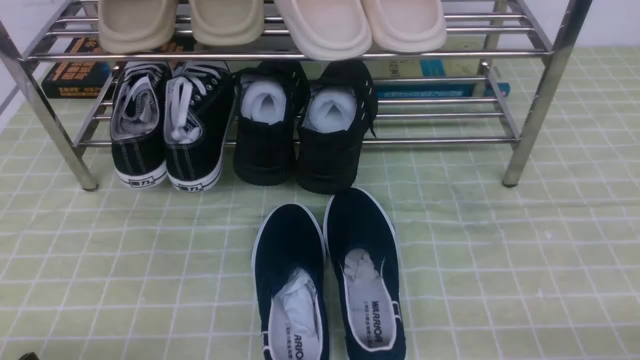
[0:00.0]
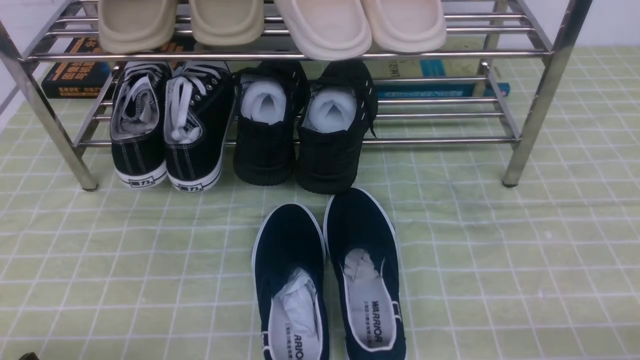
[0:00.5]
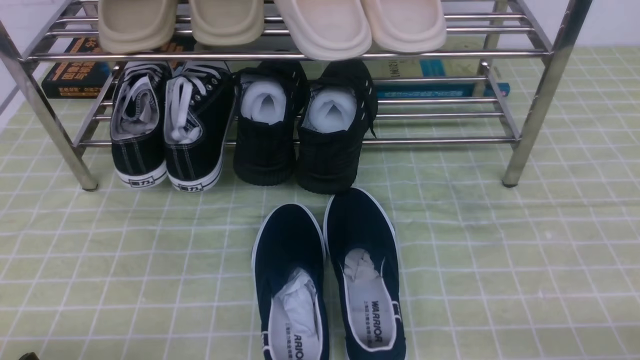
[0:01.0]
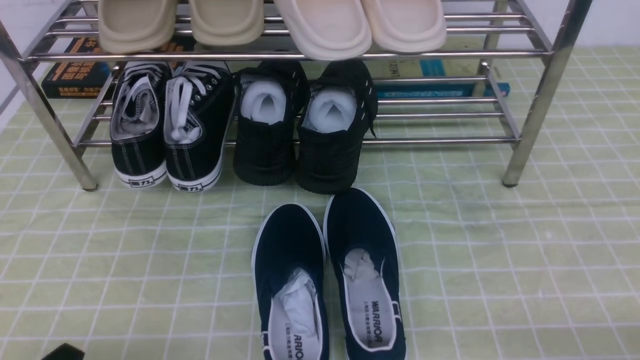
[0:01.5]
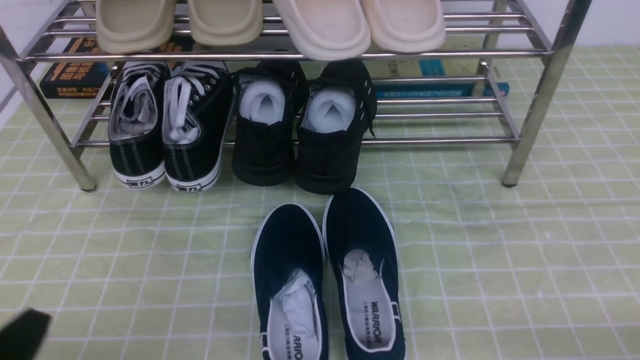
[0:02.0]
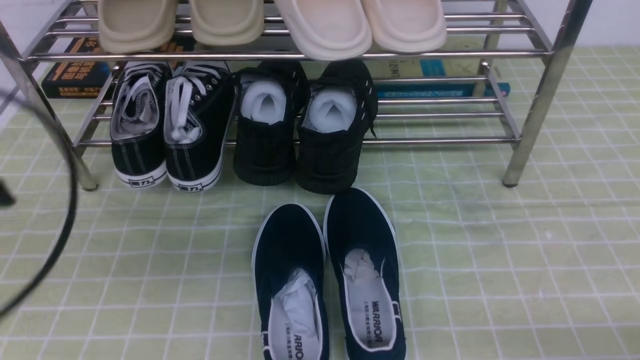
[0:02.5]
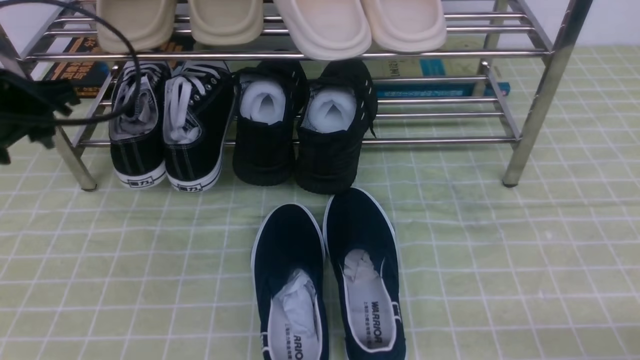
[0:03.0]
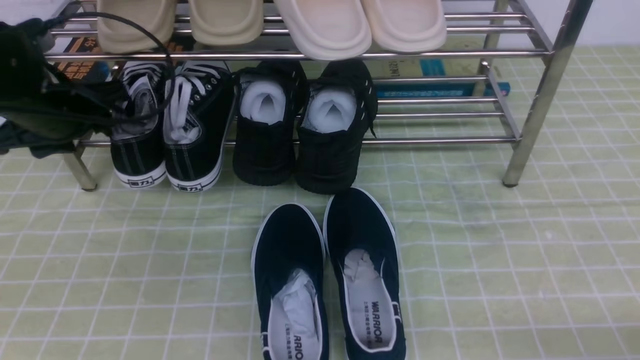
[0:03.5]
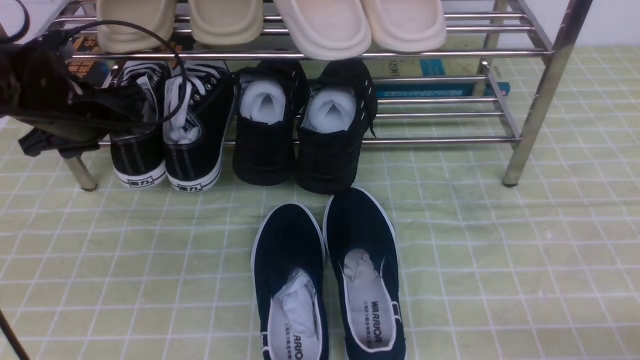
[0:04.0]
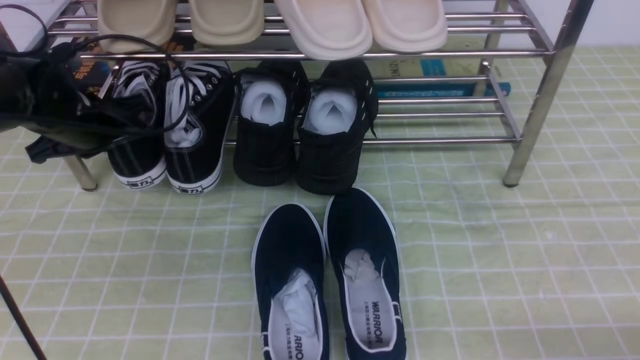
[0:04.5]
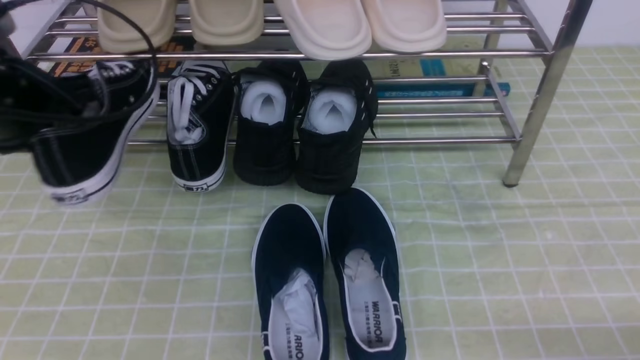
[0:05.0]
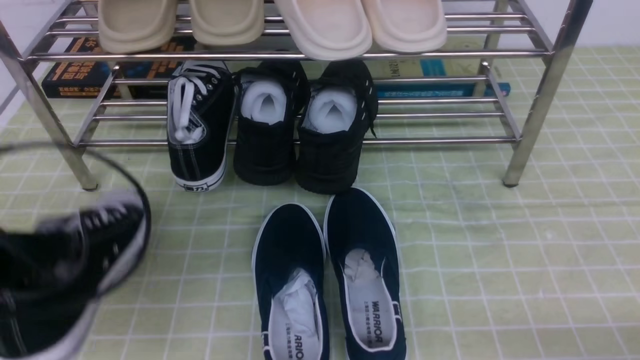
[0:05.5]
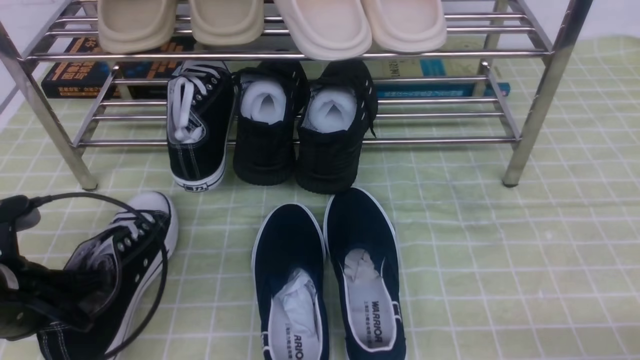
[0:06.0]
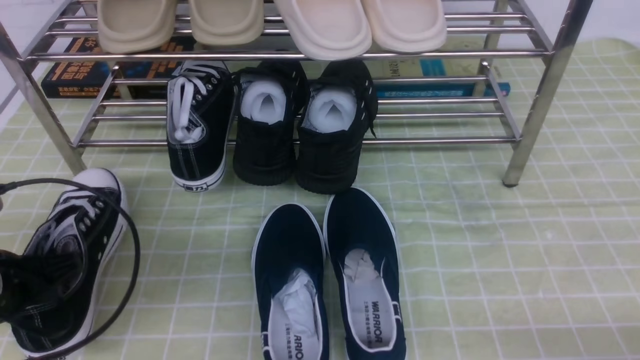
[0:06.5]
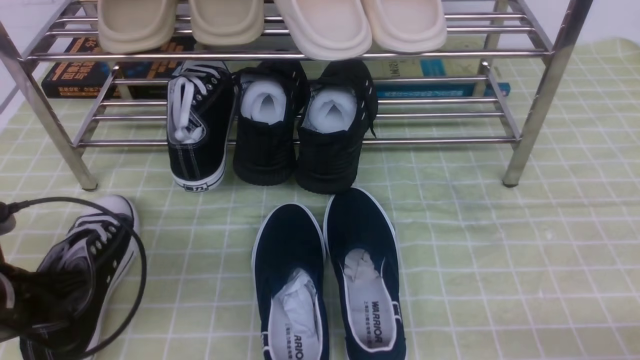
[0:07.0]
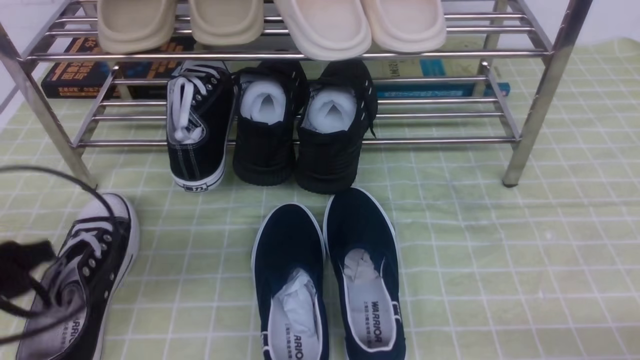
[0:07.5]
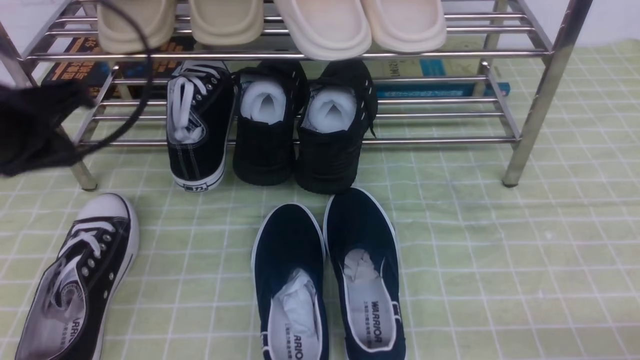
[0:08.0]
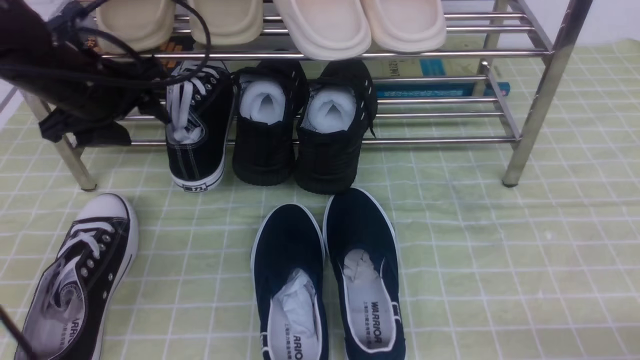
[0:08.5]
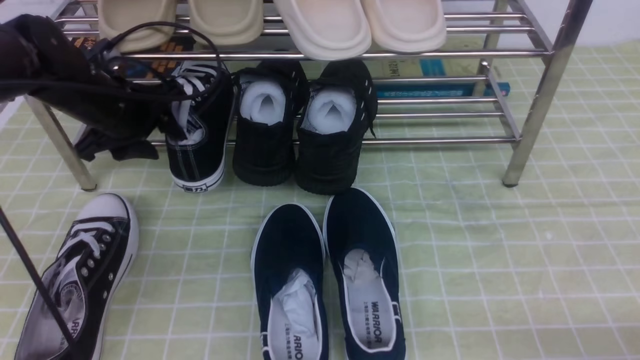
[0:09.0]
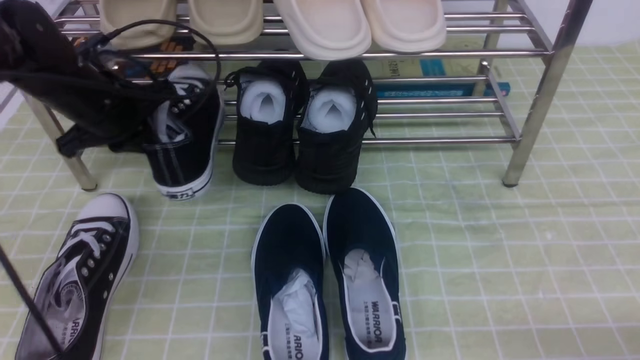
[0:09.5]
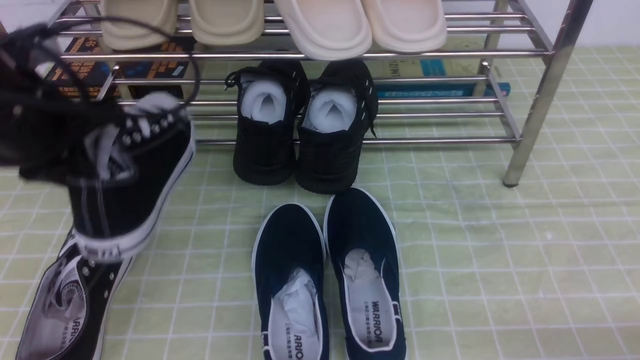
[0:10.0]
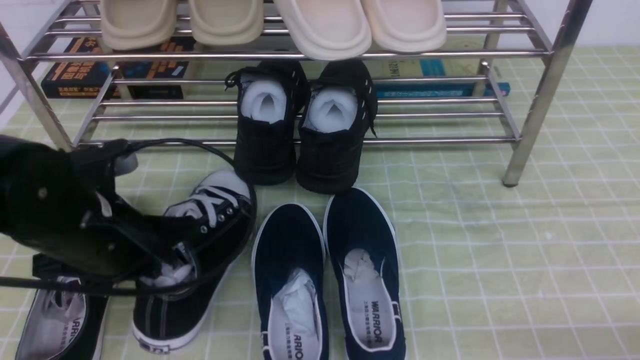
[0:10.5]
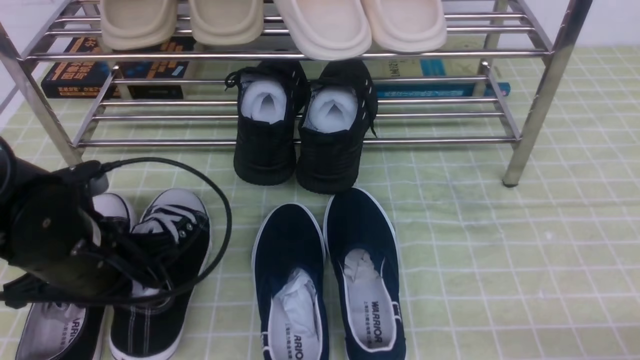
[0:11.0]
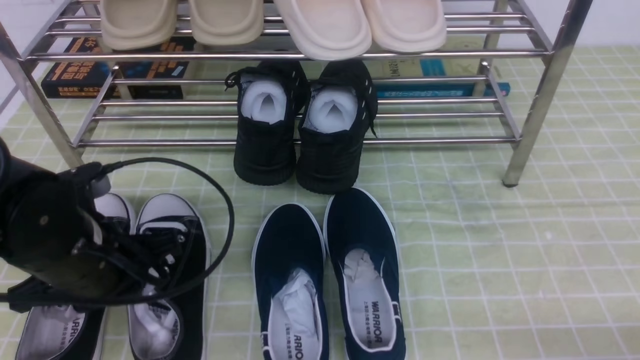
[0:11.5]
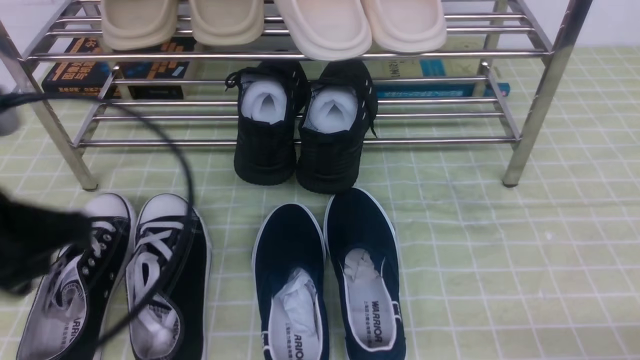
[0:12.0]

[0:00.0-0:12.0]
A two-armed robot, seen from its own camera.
Step, 0:00.0 to 0:04.5: use the left arm to clamp a shoe on the left side of the shoe rack.
Step, 0:05.0 to 0:07.5: Use your left arm to remove the clamped shoe from the shoe rack and put it down.
Step, 0:08.0 to 0:09.0: use the left arm to clamp a shoe on the left side of the shoe rack.
Step, 0:09.5 to 0:11.5: Use your left arm to remove the clamped shoe from the shoe rack and put it down.
0:00.0 to 0:02.0: The right gripper opens its fingers. The left gripper travels upward by some 5 cm.
0:02.0 to 0:04.0: The left gripper moves forward, roughly 35 cm, and opens its fingers.
0:04.0 to 0:06.0: The left gripper travels backward by some 20 cm, and closes.
0:06.0 to 0:08.0: The left gripper goes approximately 15 cm upward and forward, and opens, then closes once more.
0:08.0 to 0:10.0: The left gripper goes forward and returns, roughly 15 cm each way, and opens, then closes again.
0:10.0 to 0:12.0: The left gripper is displaced backward by some 15 cm.

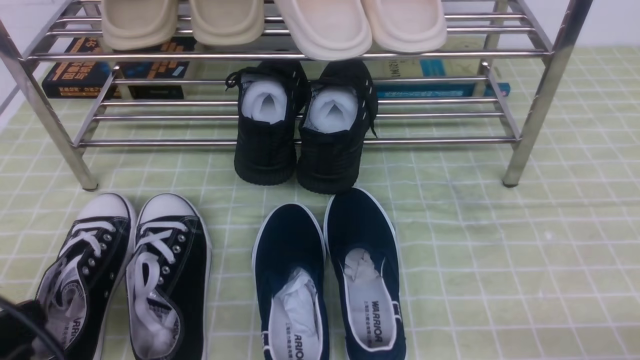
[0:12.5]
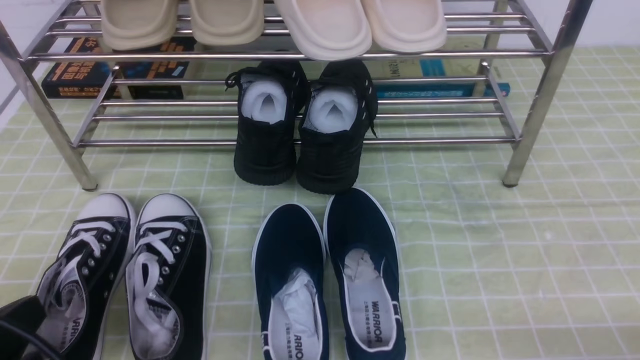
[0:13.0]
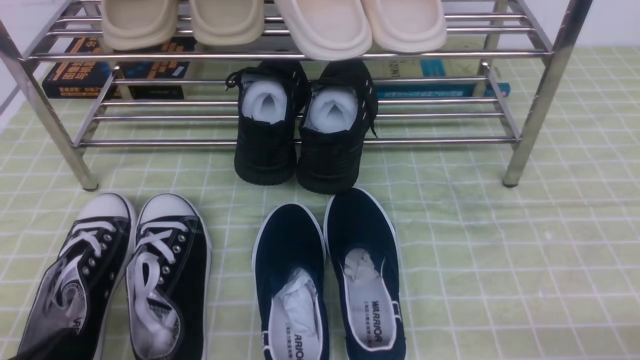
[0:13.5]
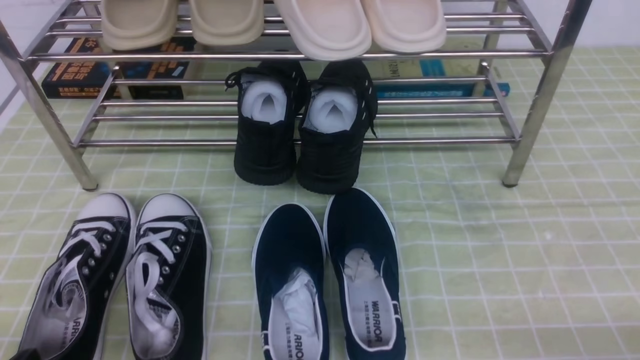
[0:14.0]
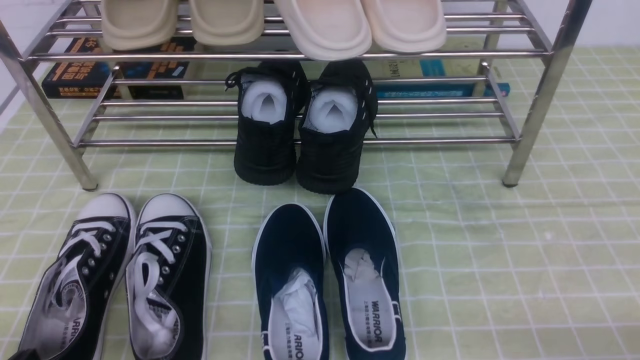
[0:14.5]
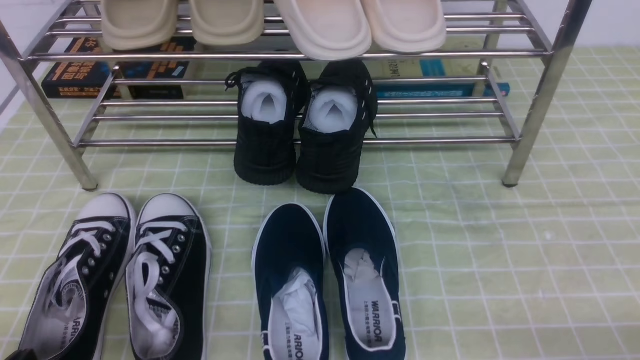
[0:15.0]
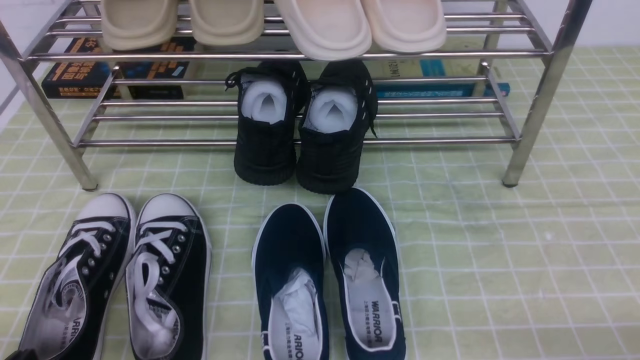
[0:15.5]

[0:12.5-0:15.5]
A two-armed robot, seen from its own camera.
0:12.5 to 0:14.0: The left gripper is displaced downward by about 10 cm.
0:14.0 to 0:15.5: Both grippers stay put.

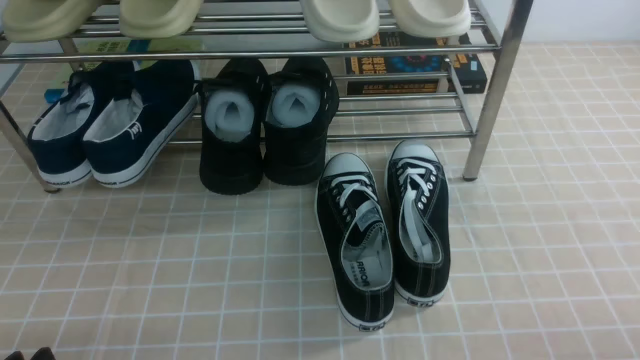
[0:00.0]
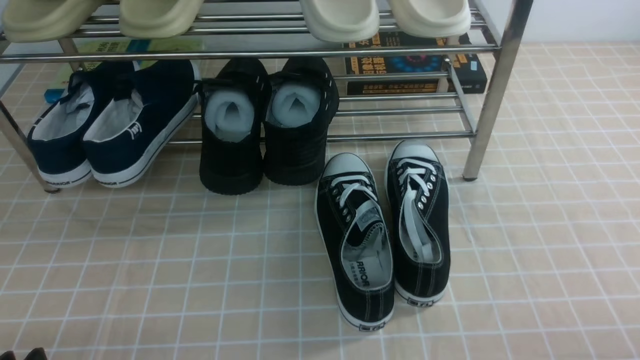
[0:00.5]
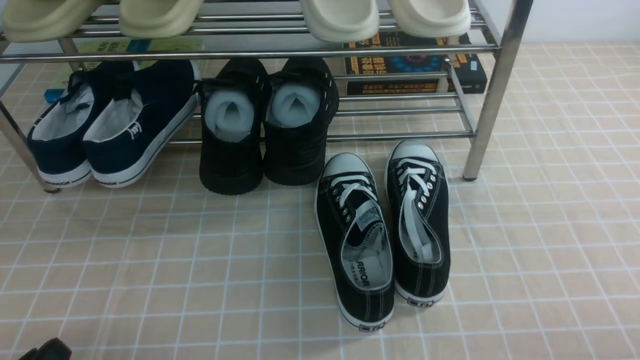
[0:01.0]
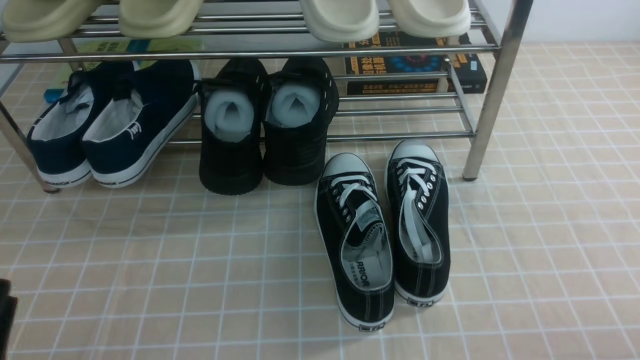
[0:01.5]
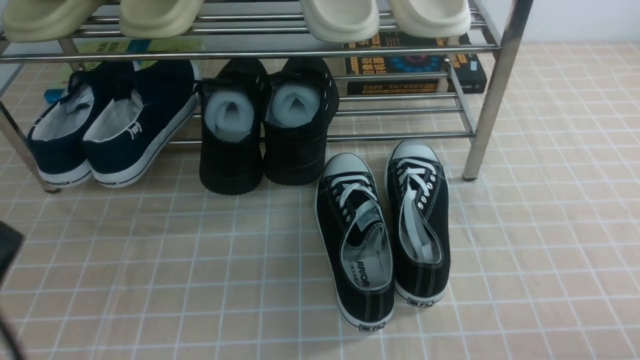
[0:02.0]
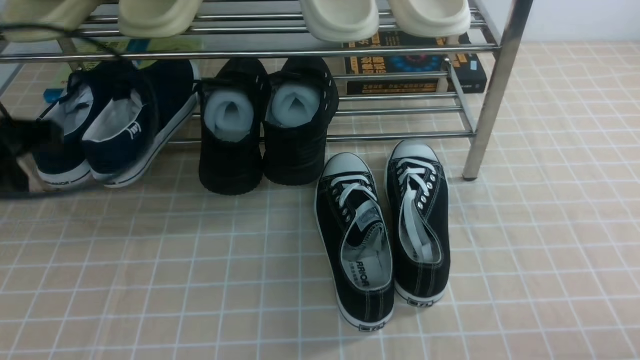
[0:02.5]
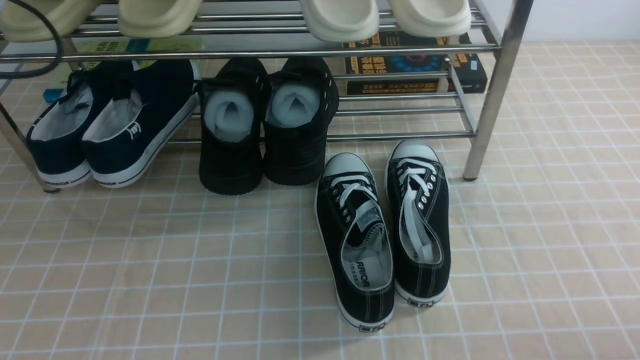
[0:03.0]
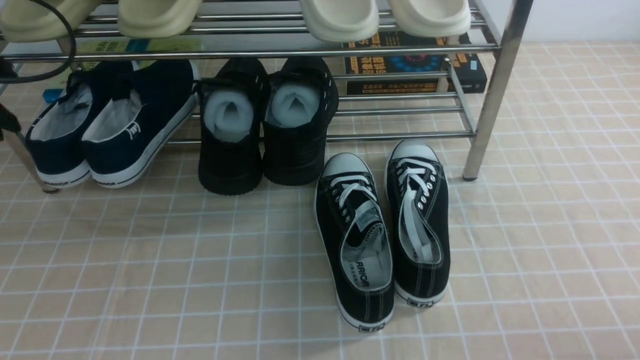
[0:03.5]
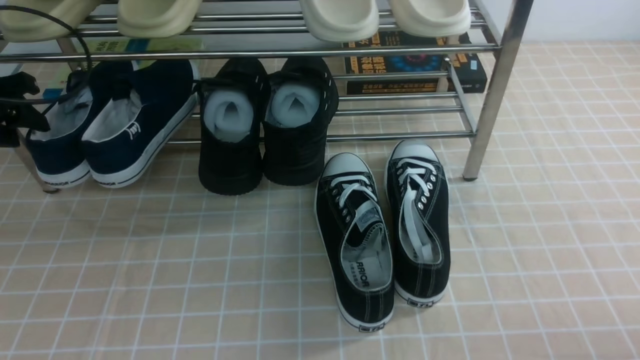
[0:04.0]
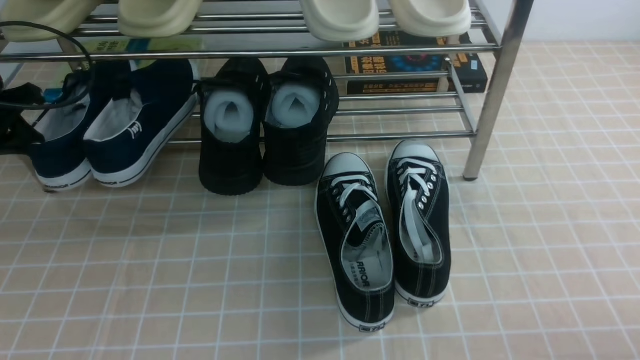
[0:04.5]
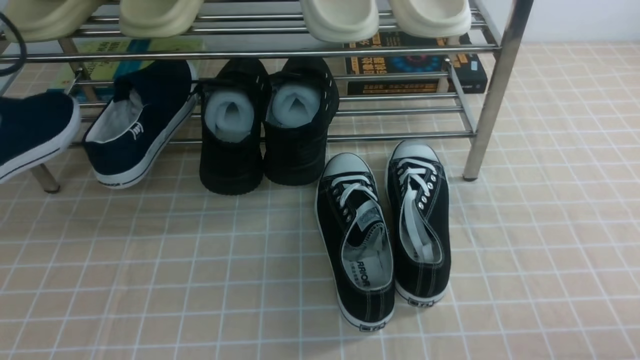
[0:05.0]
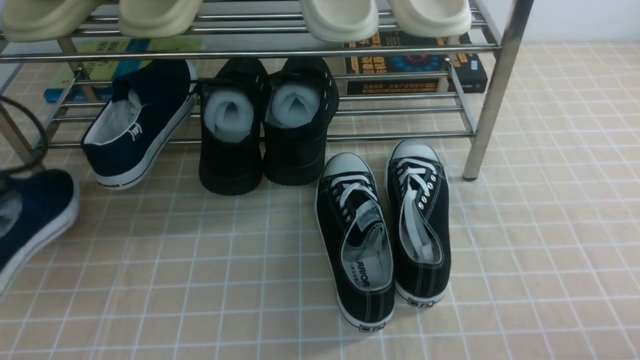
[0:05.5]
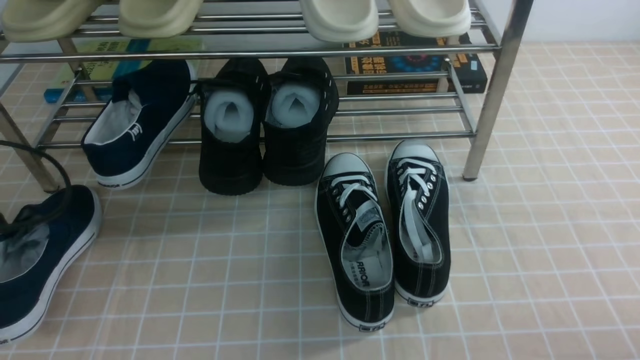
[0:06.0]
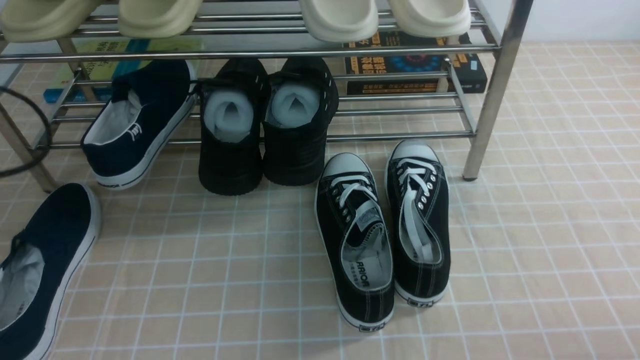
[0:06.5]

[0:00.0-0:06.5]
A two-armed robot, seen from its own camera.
Step, 0:00.0 to 0:04.0: use the left arm to clamp a shoe on the left side of the shoe rack.
Step, 0:04.5 to 0:06.0: Use your left arm to remove the clamped shoe from the shoe rack and put it down.
0:00.0 to 0:02.0: The left gripper travels upward by roughly 10 cm, and closes up.
0:02.0 to 0:04.5: The left gripper goes approximately 30 cm forward and to the left, and opens, then closes once more.
0:04.5 to 0:06.5: The left gripper shifts roughly 10 cm backward, and opens.
